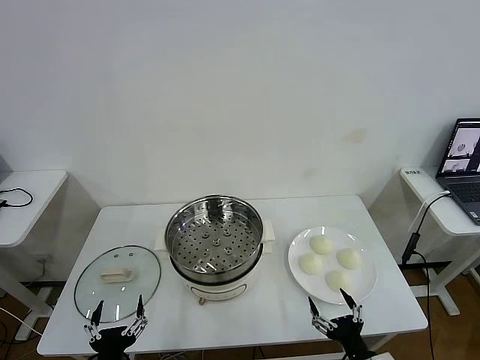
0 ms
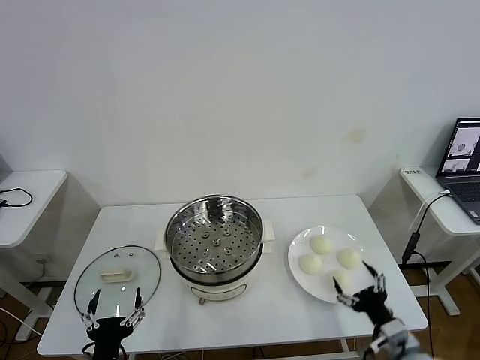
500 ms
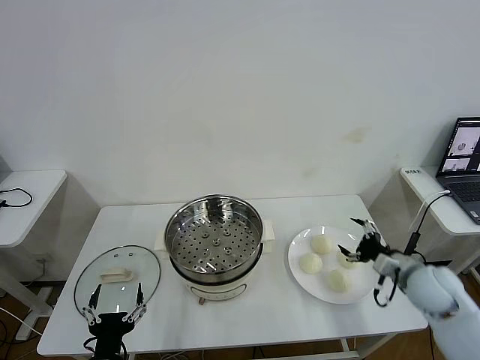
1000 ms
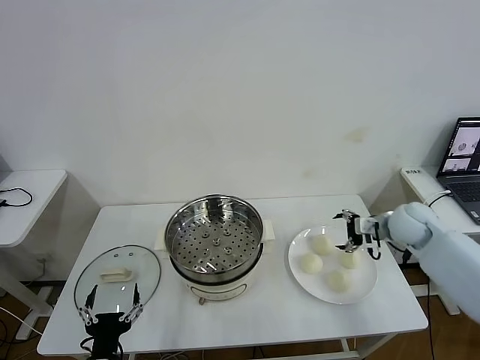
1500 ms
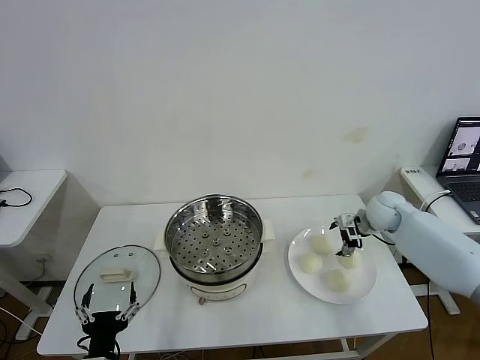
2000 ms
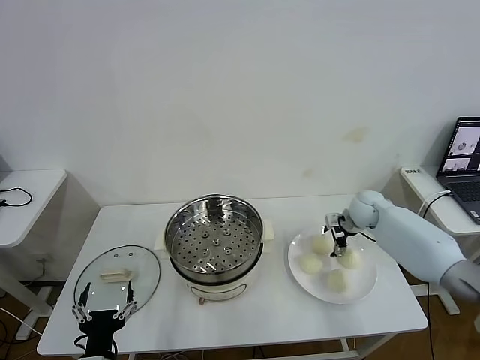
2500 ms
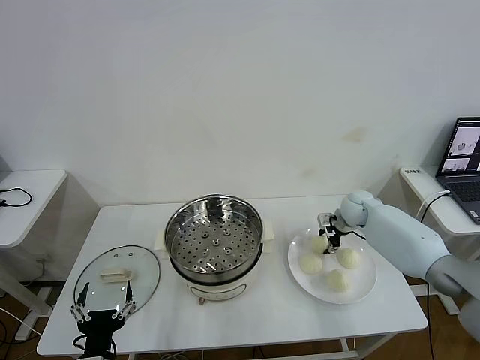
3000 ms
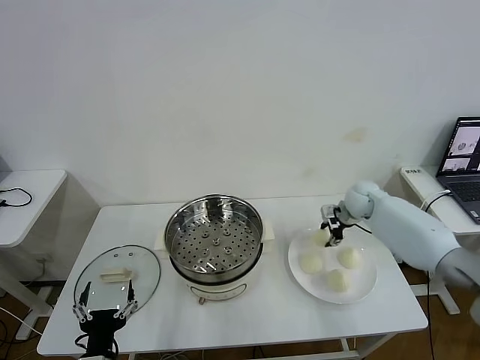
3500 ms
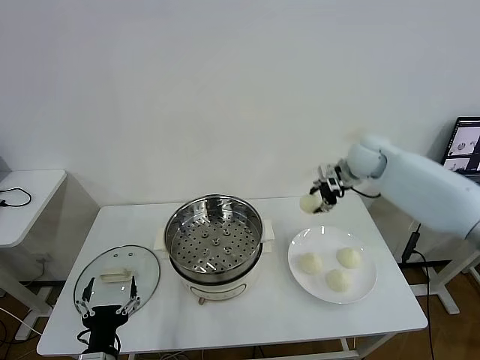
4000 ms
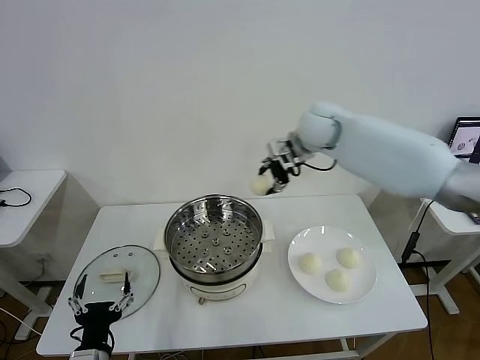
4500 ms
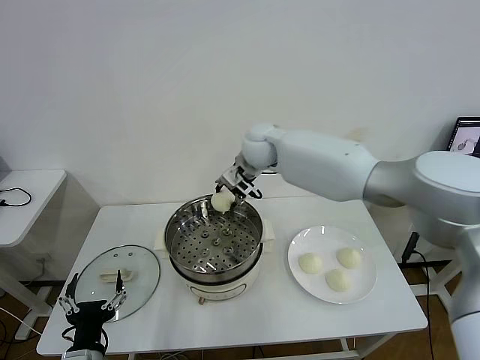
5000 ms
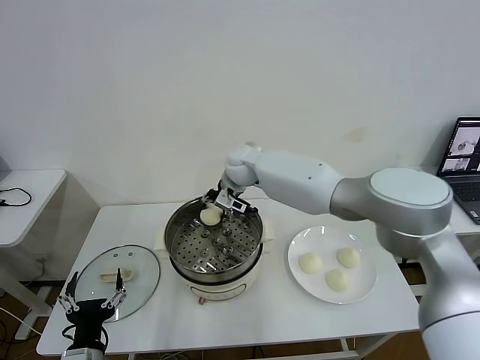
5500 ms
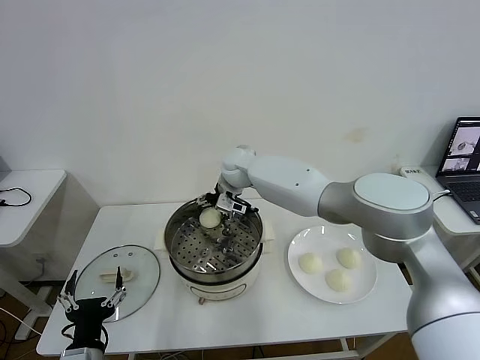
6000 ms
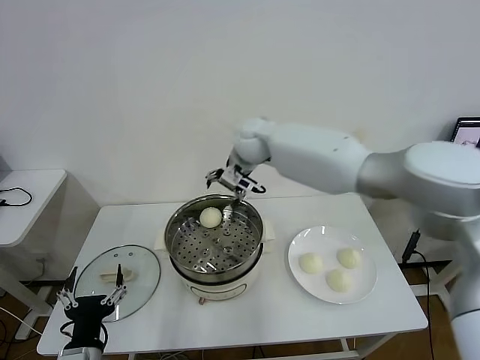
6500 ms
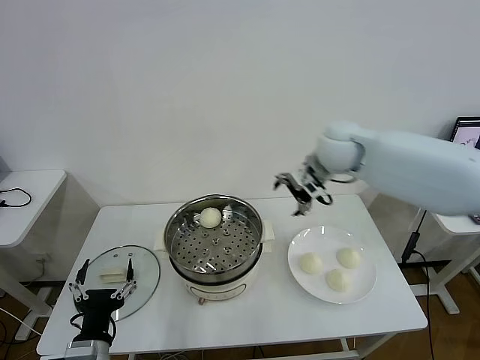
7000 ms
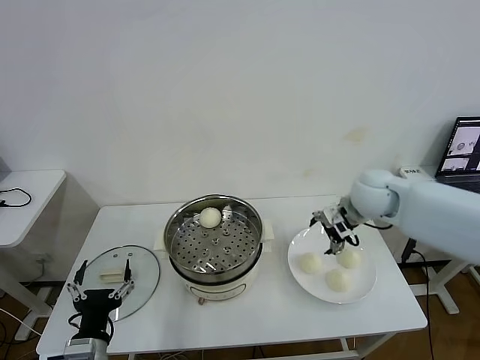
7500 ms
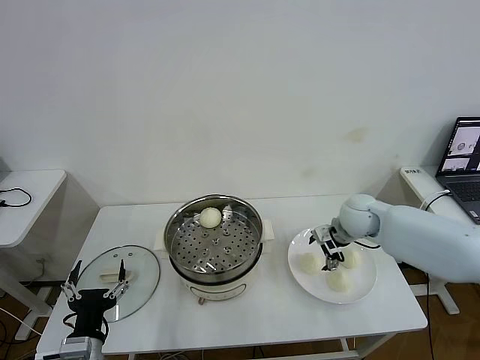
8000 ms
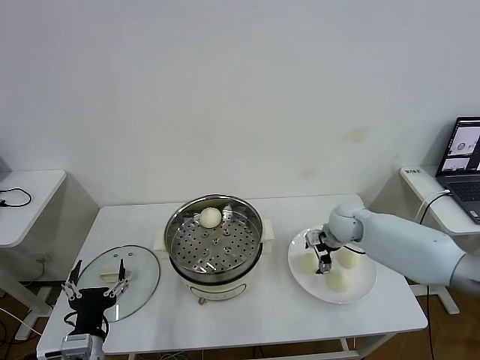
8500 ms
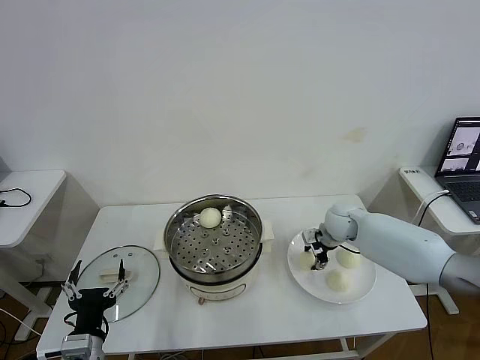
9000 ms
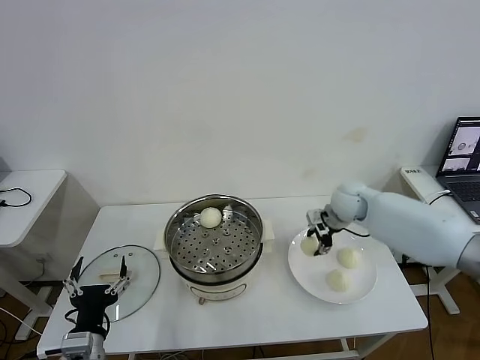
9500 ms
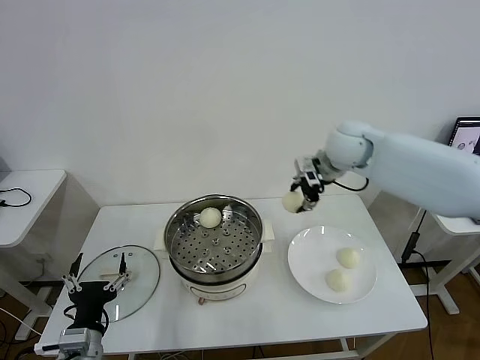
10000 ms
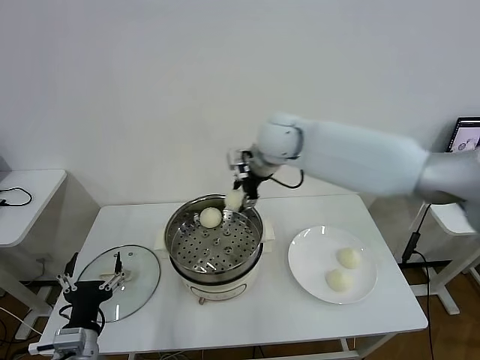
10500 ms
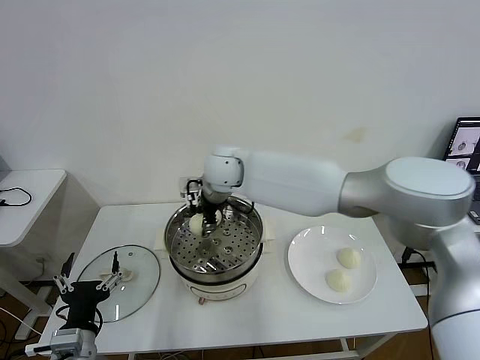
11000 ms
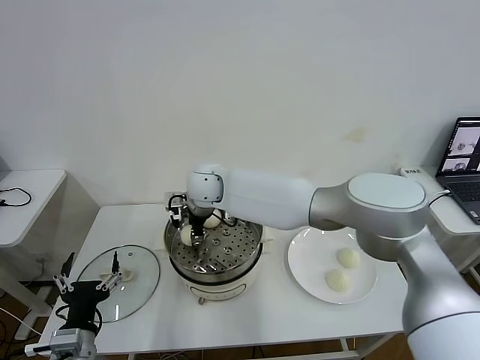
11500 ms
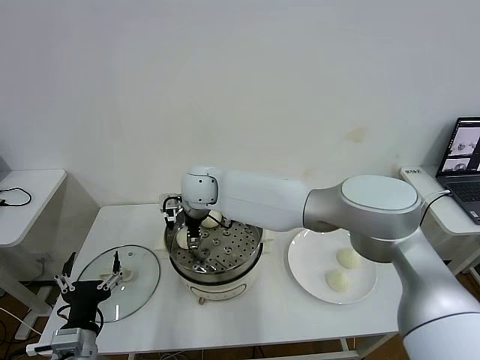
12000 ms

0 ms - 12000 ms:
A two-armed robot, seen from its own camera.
Task of the whole recording: take steamed baozi put them in steamer then cover it.
Step, 0 ms - 2500 ms: Grasp the baozi in the plate with right gripper.
Step, 3500 ms - 6000 ms: Place the baozi on the steamer with right gripper.
Step, 6500 ms - 8500 ms: Grasp the baozi in the plate with right gripper.
2000 ms - 4000 ms: The right gripper heads upward and to the left, covering some 20 cm, and closes.
4000 ms - 6000 ms: The right gripper shifts about 25 cm to the left, and opens its fingers.
6000 ms - 8000 ms: The right gripper goes roughly 30 cm to the right.
8000 ms - 10000 ms: The right gripper heads upward, covering approximately 20 cm, and closes its fingers.
10000 ms - 12000 ms: The right gripper shifts approximately 30 cm to the left, and opens.

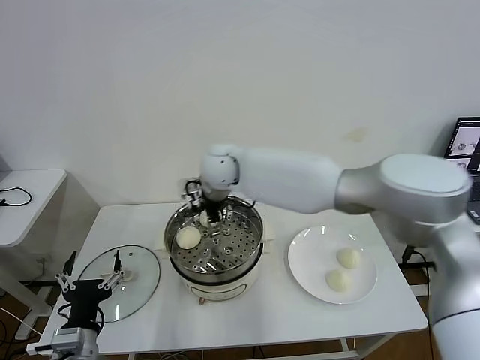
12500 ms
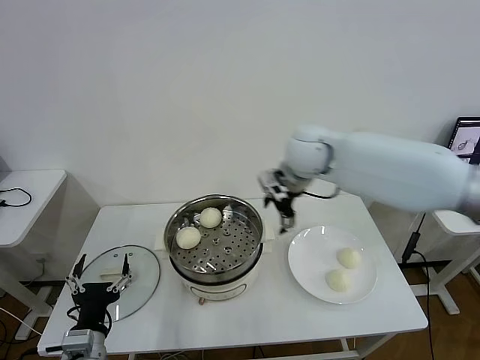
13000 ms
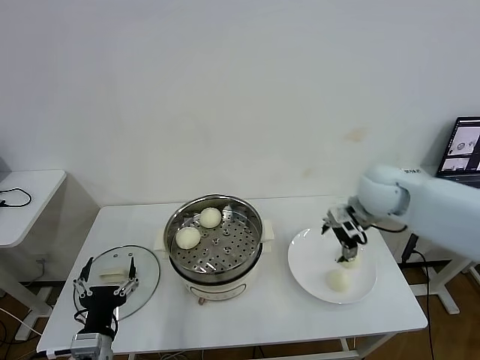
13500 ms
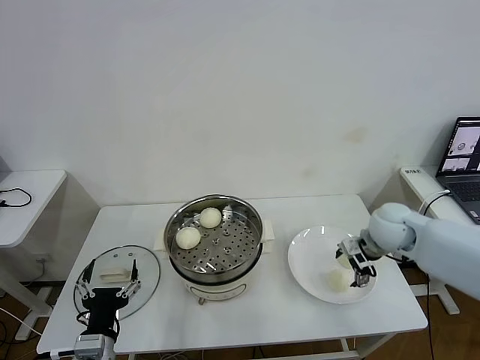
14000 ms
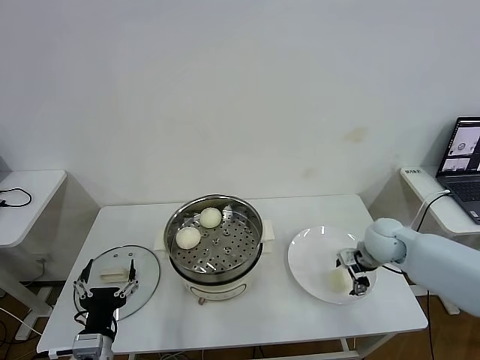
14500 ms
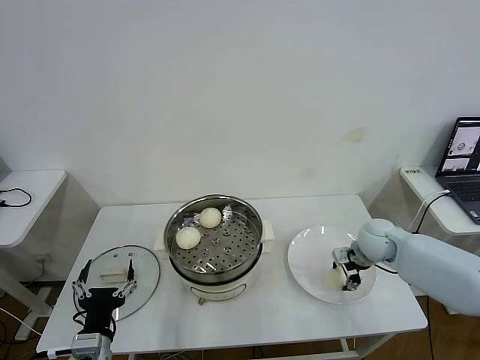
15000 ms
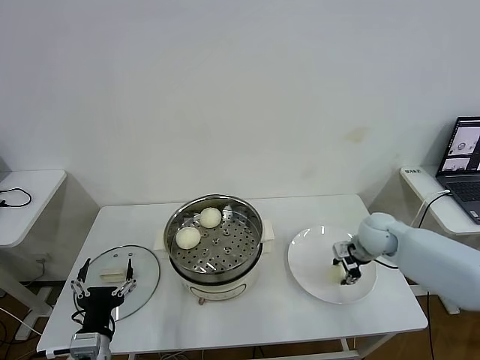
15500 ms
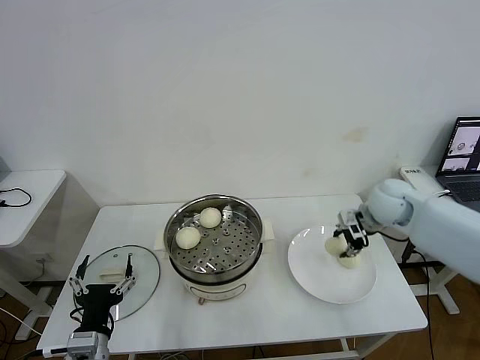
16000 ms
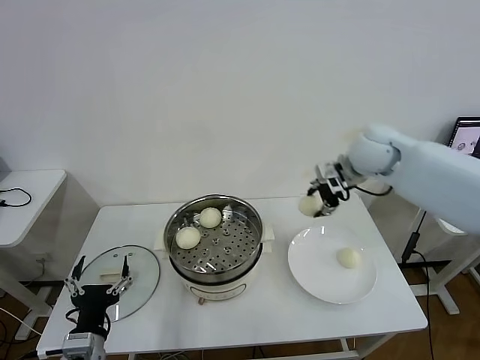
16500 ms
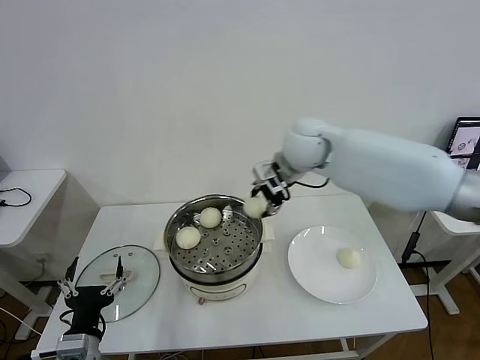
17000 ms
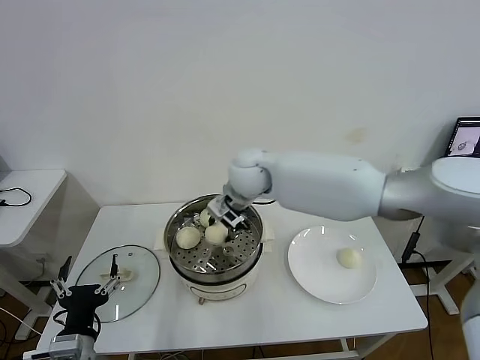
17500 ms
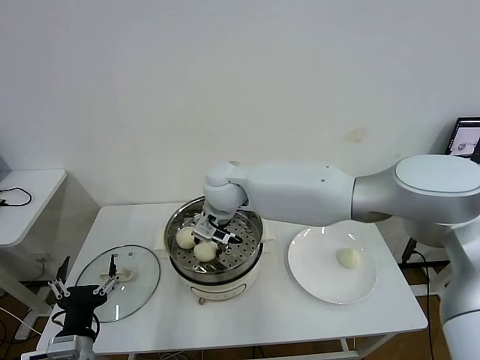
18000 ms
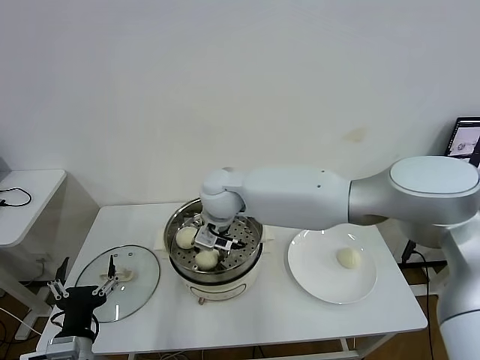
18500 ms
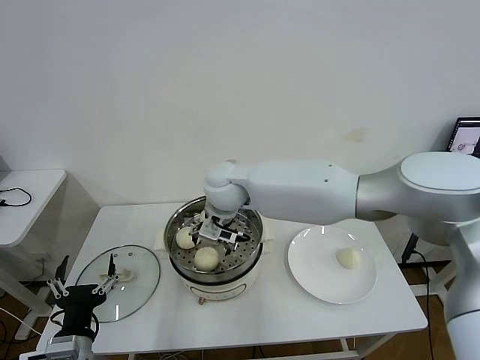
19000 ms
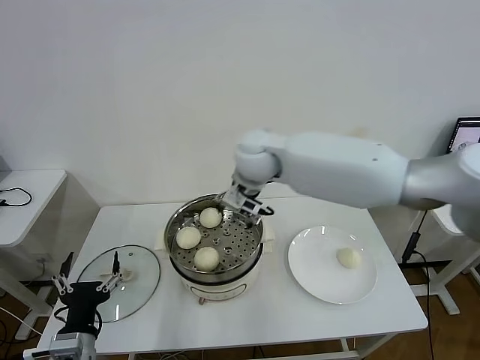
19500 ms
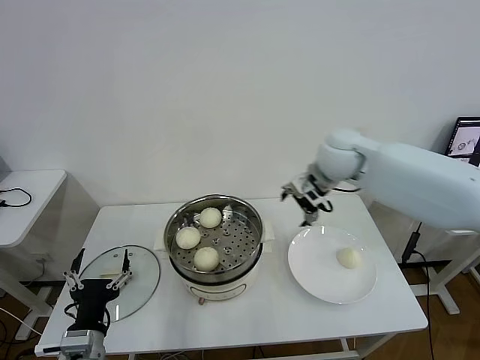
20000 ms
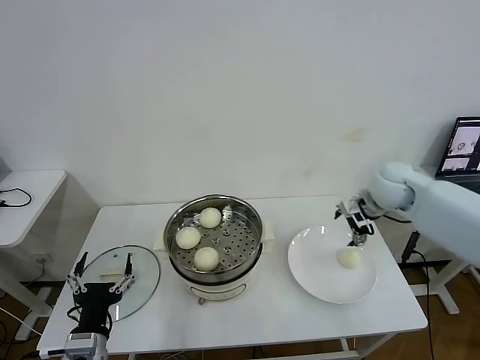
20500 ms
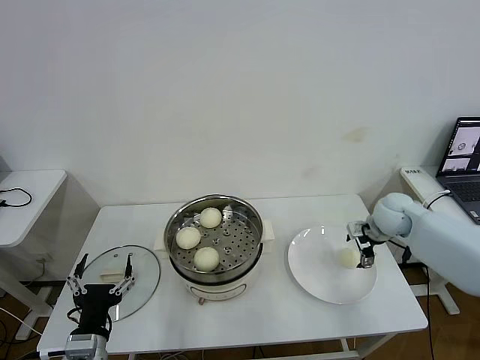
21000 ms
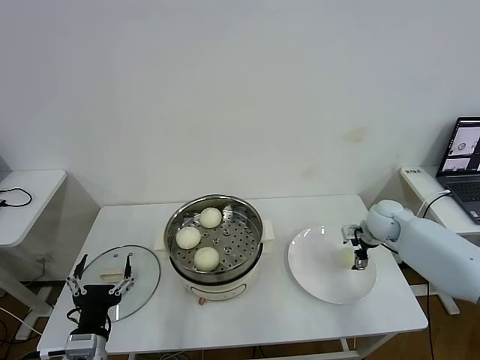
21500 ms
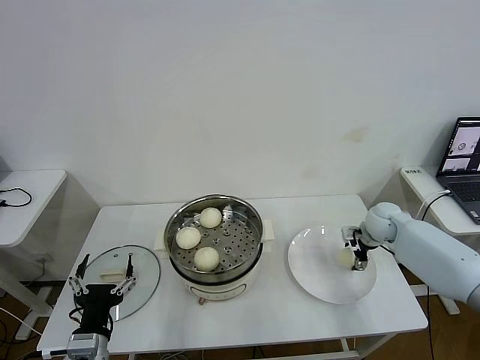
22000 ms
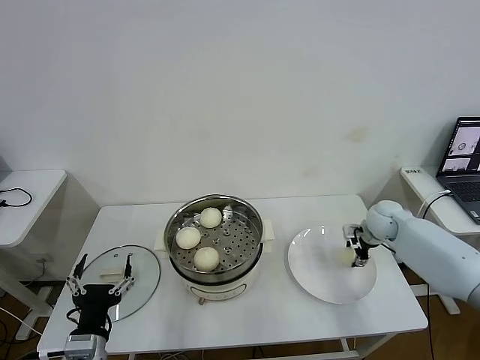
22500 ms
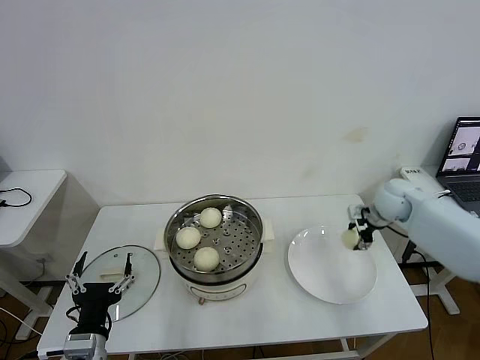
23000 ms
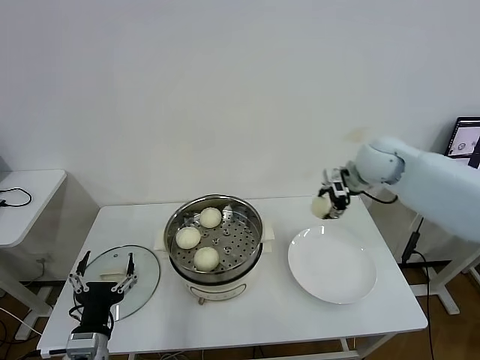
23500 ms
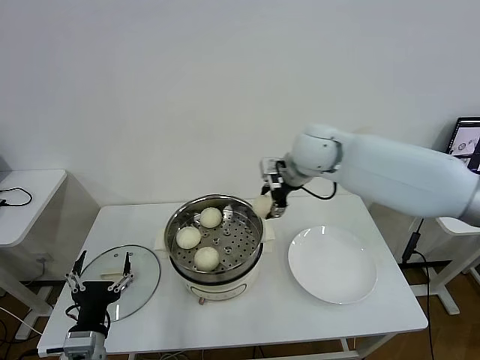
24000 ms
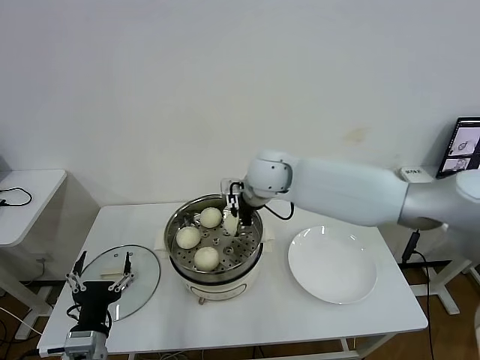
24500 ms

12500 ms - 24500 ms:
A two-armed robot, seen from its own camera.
Task of the whole recording: take steamed baozi put them in steamer then cover it.
Step, 12500 ms - 15000 ms: Grasp the baozi in the plate with right gripper.
Step, 15500 ms - 18500 ms: Place the baozi on the steamer with right gripper.
Step, 19000 ms - 22000 ms: Grasp the baozi in the plate with right gripper.
12500 ms - 14500 ms: The right gripper moves to the right and downward, some 40 cm.
14500 ms - 16500 ms: The right gripper shifts roughly 20 cm upward, and closes up.
16500 ms - 18500 ms: The right gripper travels to the left by roughly 30 cm.
18500 ms - 20500 ms: The right gripper shifts some 35 cm to the right, and opens its fingers.
20500 ms - 22500 ms: The right gripper is displaced downward by roughly 15 cm, and closes its fingers.
22500 ms - 24500 ms: The right gripper shifts roughly 35 cm to the left and upward.

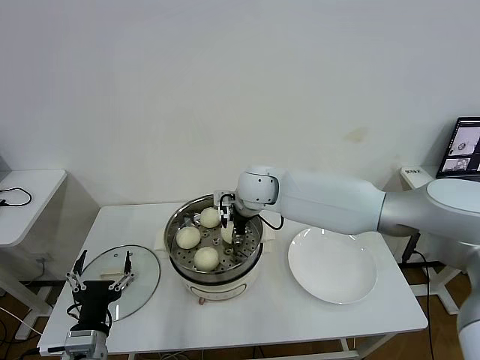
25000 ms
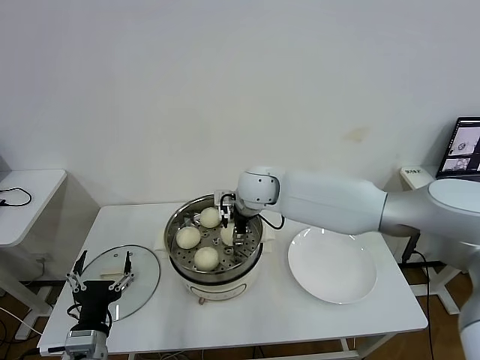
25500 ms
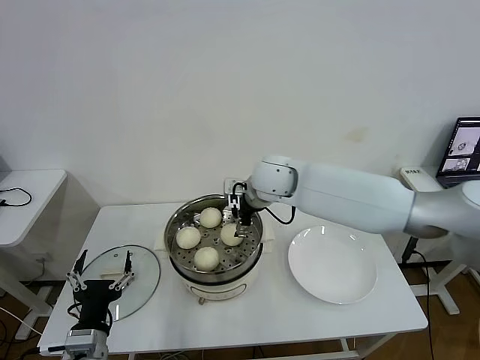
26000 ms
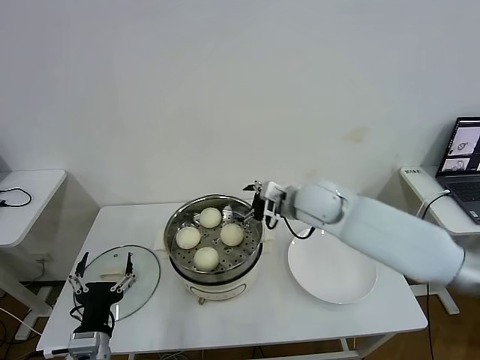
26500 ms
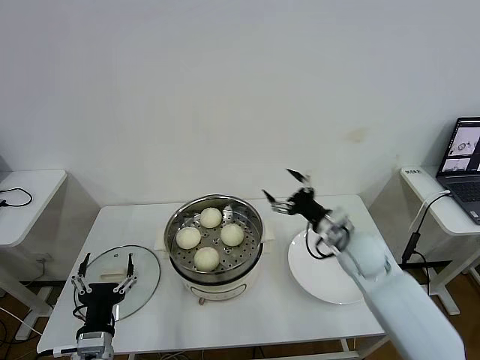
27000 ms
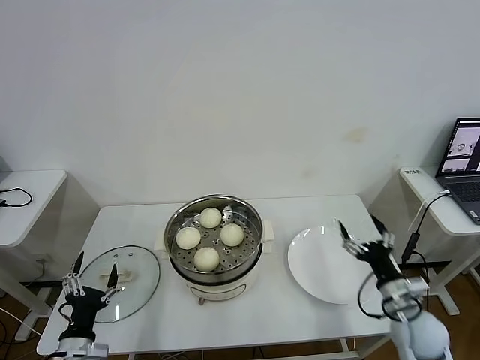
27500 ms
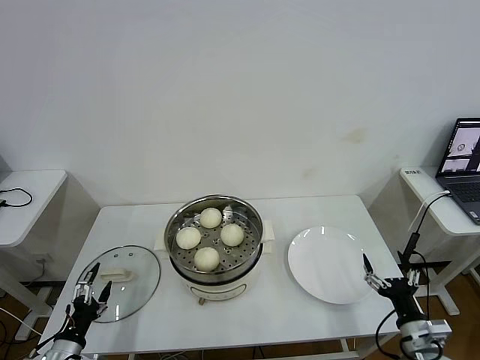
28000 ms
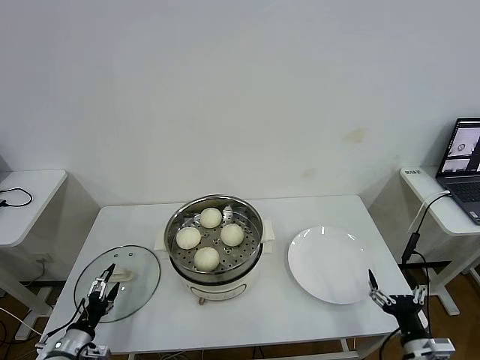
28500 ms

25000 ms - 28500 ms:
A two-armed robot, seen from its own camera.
Task of the whole recording: take steamed baozi put them in steamer then cover it.
25000 ms - 27000 ms: The right gripper heads to the right, backward and downward, covering approximately 25 cm, and opens.
27000 ms - 28500 ms: The left gripper moves to the left and downward, some 20 cm, while the right gripper shifts some 30 cm backward, downward and to the right.
